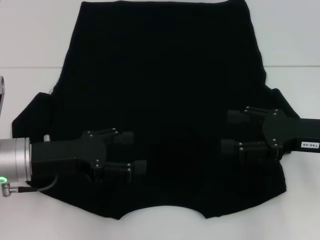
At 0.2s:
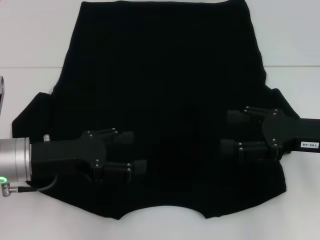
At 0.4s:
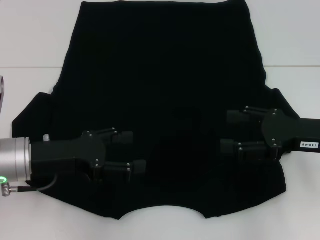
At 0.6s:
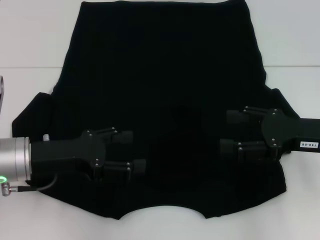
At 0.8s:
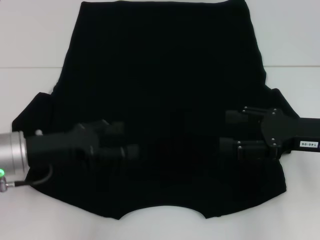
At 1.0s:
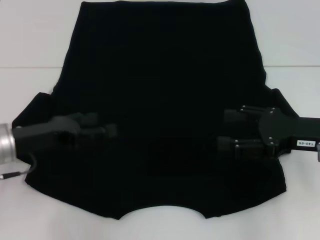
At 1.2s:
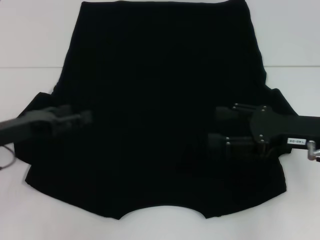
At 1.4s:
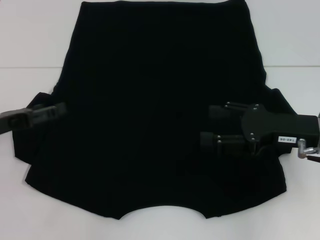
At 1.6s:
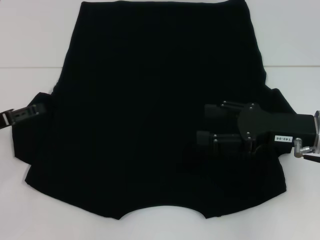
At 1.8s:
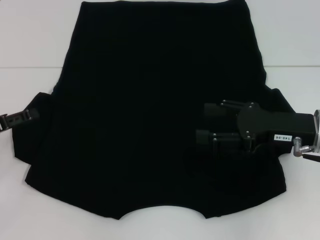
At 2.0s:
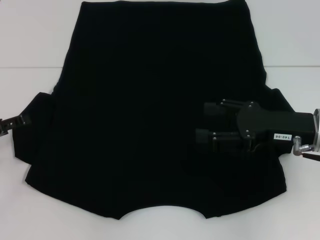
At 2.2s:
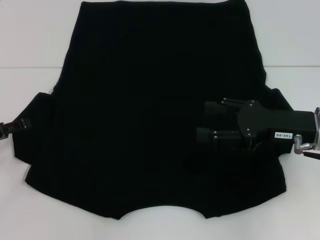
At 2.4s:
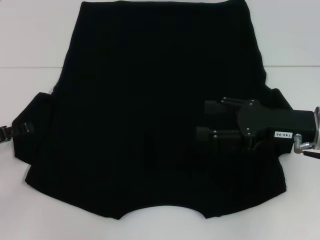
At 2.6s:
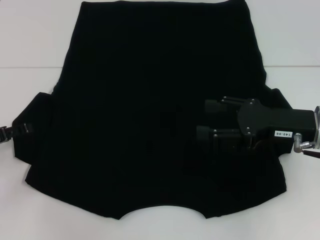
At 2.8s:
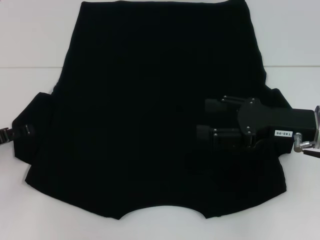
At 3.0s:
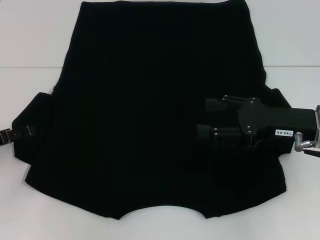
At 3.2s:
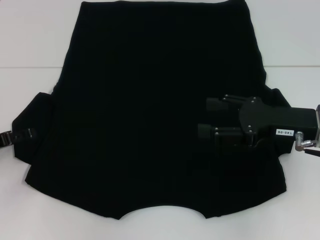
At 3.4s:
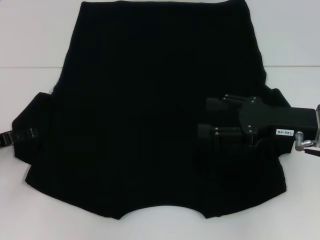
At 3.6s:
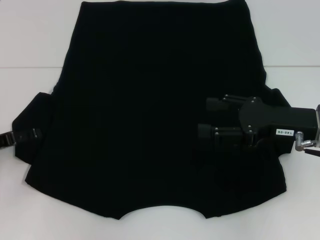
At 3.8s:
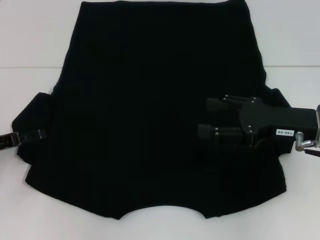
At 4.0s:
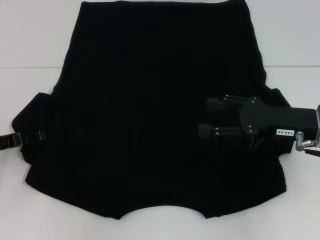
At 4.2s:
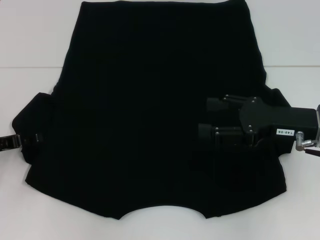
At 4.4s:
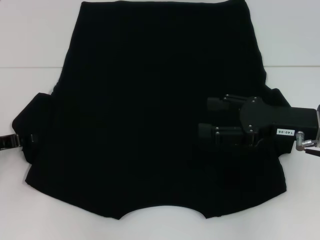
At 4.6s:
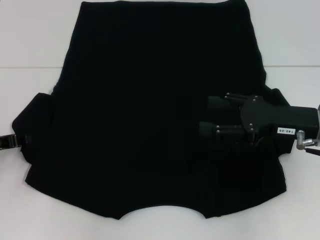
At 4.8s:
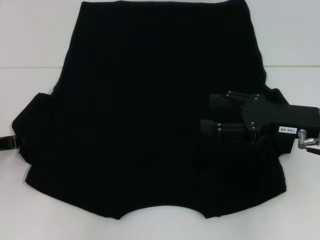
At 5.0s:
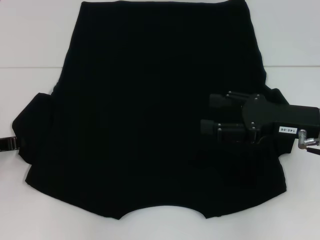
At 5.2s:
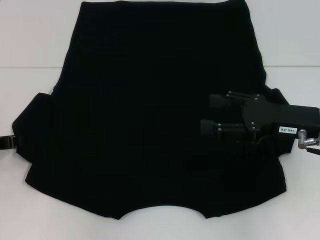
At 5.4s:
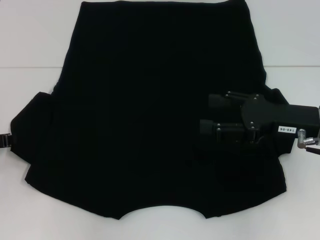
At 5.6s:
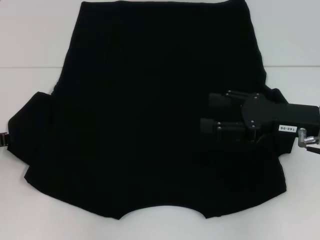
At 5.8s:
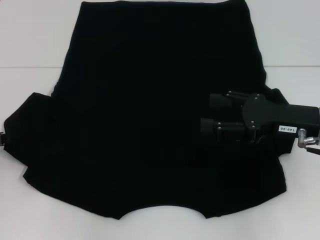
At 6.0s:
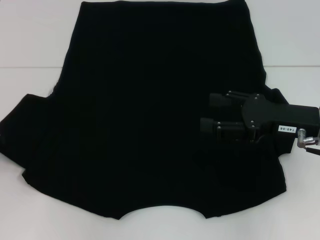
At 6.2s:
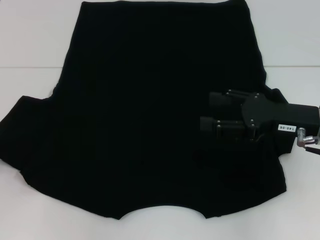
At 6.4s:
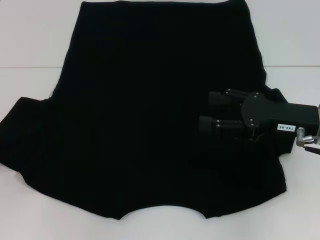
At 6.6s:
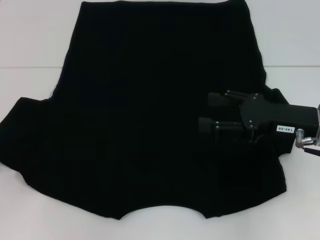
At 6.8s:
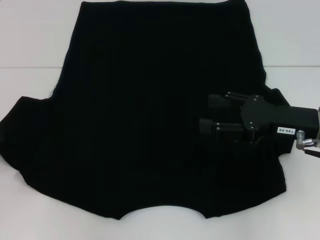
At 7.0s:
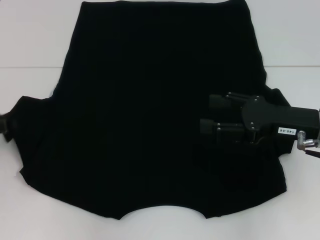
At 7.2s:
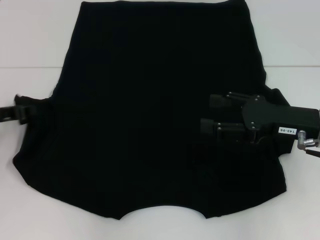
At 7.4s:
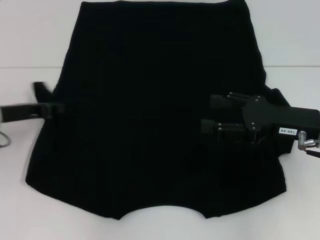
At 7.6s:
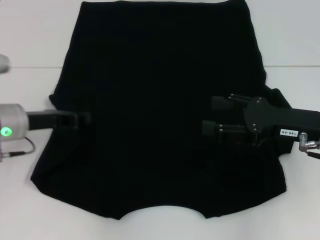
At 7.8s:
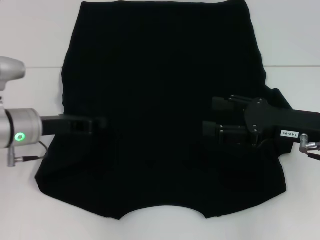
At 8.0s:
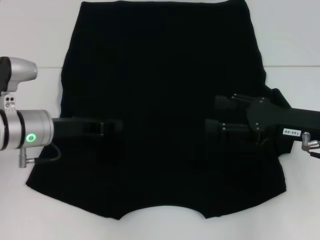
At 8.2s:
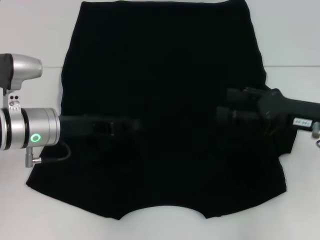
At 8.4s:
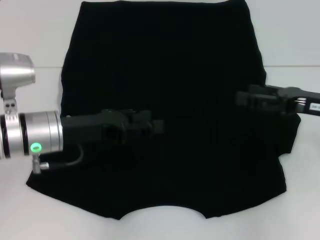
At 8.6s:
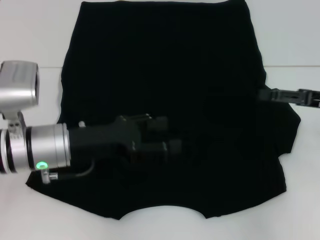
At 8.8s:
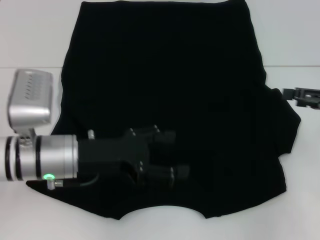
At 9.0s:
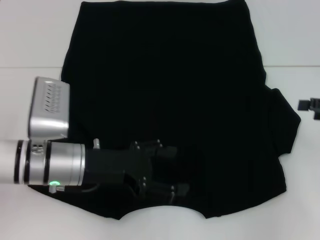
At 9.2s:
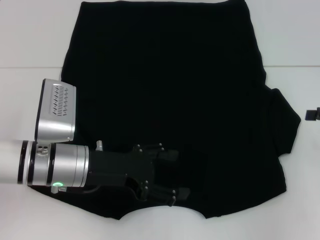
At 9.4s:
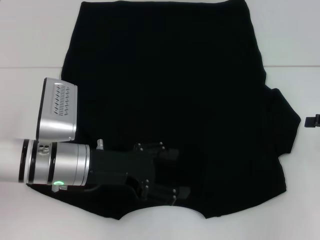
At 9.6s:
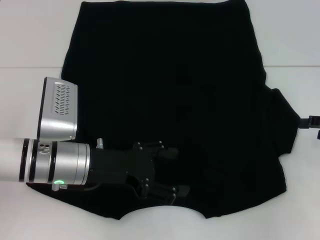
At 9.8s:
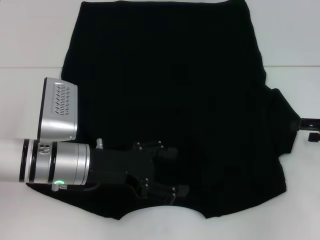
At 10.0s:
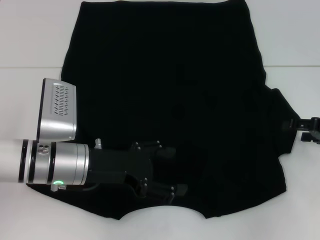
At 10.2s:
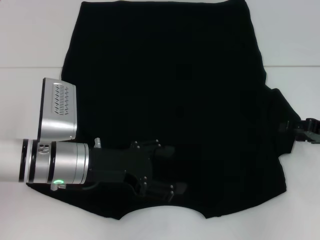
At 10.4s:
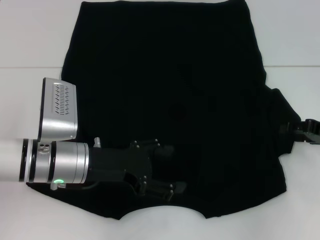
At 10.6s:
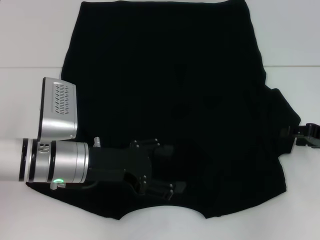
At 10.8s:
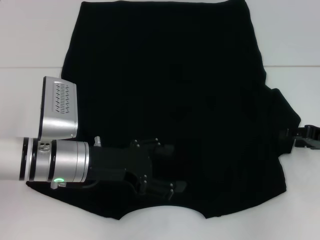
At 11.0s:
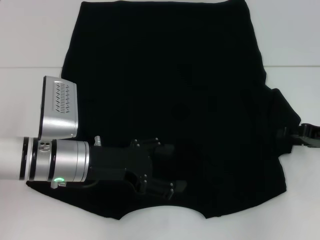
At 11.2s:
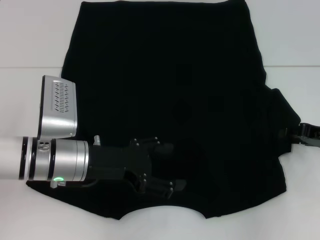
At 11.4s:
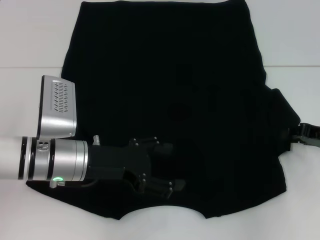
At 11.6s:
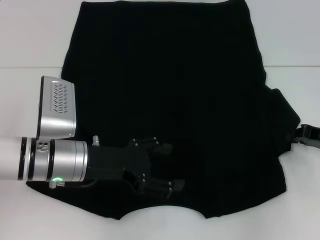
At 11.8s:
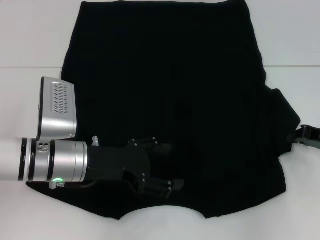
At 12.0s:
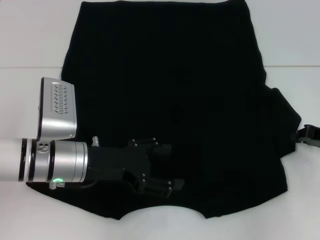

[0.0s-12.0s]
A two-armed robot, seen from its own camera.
Step, 0.0s to 9.0s: Fold the bottom left sleeve with your left hand.
0.0s to 1.6s: The left gripper heads to the left, covering about 10 cm.
1.6s to 3.0s: There are only small adjustments of the grippers.
3.0s to 4.4s: The left gripper closes.
4.4s to 6.0s: The left gripper closes up.
6.0s to 7.6s: The left gripper travels to the right by some 10 cm.
7.6s to 9.0s: The right gripper heads to the right, covering about 15 cm. Meanwhile the left gripper shifts some 10 cm to the right and backward, and opens up.
9.0s to 10.4s: The right gripper moves downward, roughly 5 cm.
10.4s to 12.0s: The right gripper closes.

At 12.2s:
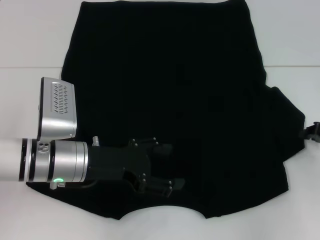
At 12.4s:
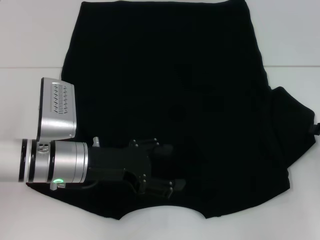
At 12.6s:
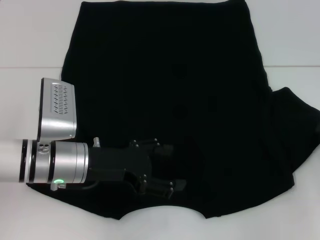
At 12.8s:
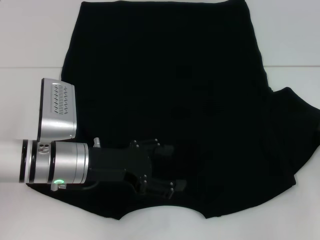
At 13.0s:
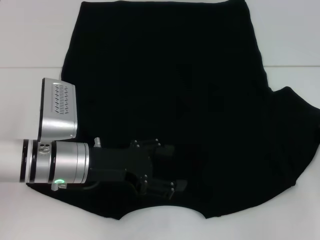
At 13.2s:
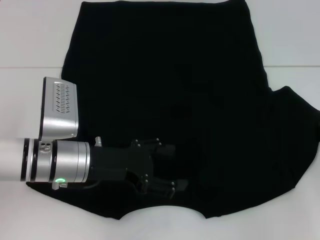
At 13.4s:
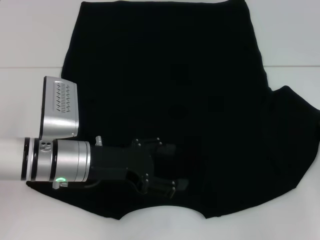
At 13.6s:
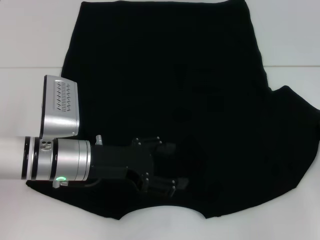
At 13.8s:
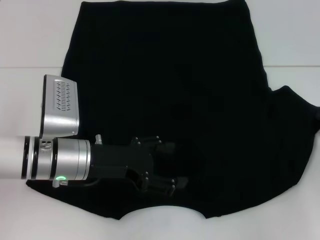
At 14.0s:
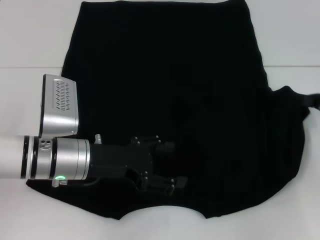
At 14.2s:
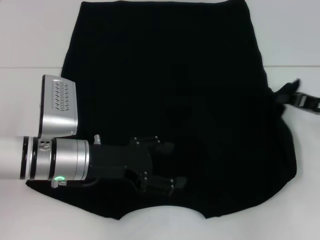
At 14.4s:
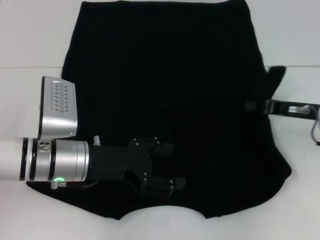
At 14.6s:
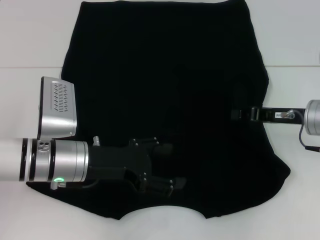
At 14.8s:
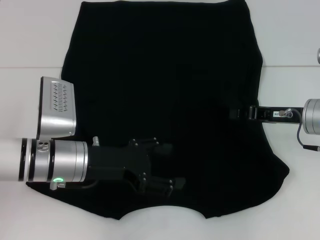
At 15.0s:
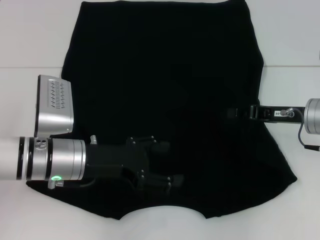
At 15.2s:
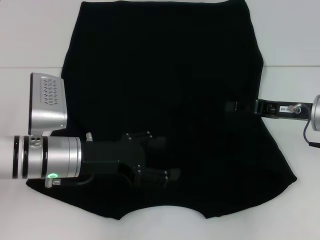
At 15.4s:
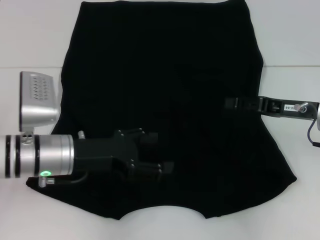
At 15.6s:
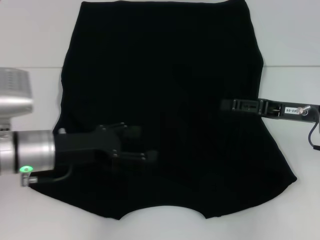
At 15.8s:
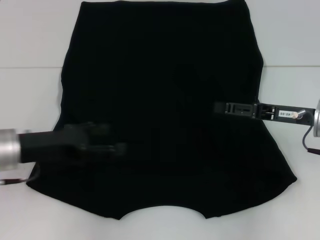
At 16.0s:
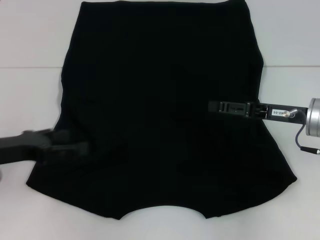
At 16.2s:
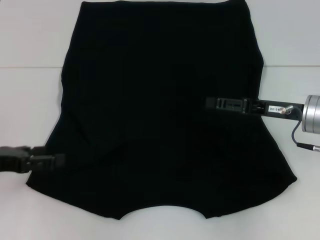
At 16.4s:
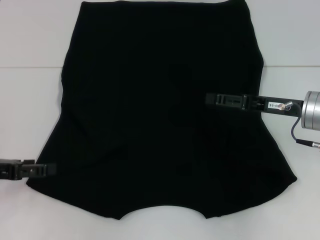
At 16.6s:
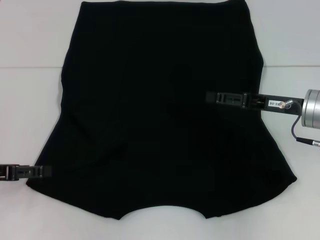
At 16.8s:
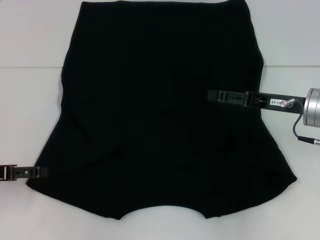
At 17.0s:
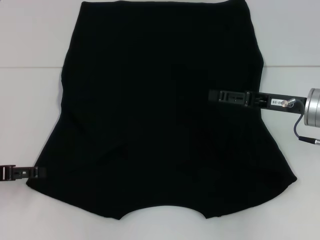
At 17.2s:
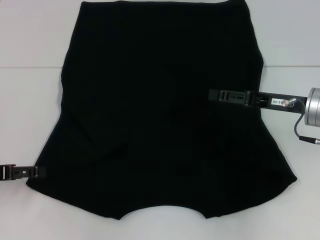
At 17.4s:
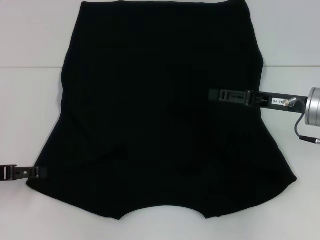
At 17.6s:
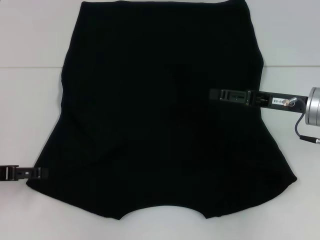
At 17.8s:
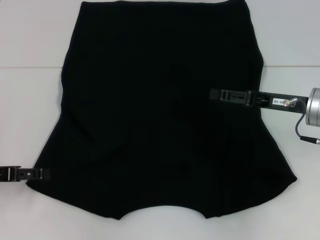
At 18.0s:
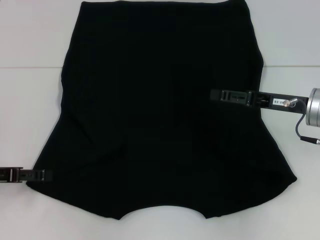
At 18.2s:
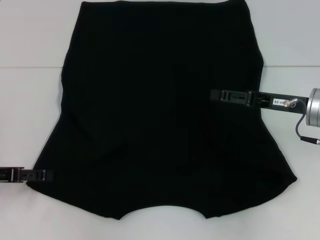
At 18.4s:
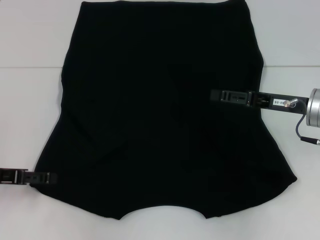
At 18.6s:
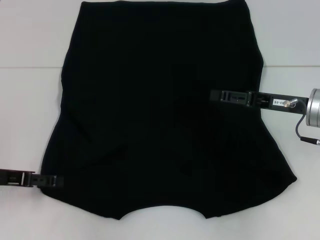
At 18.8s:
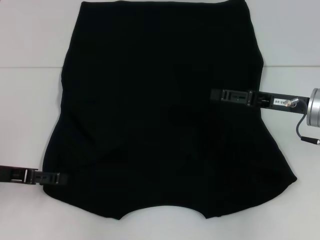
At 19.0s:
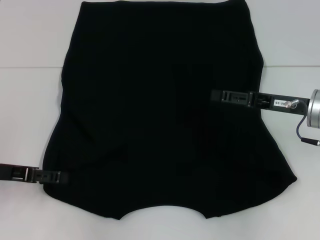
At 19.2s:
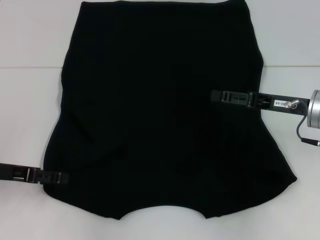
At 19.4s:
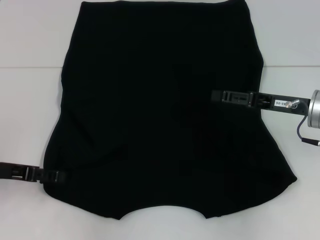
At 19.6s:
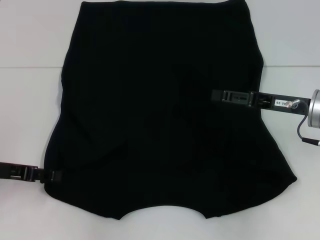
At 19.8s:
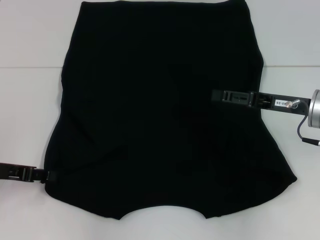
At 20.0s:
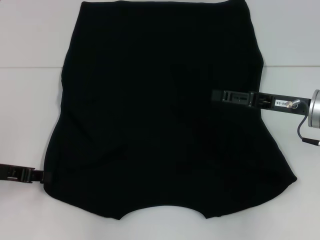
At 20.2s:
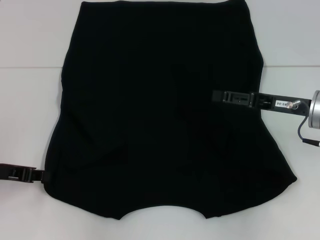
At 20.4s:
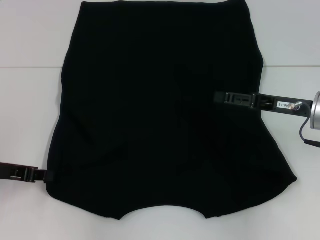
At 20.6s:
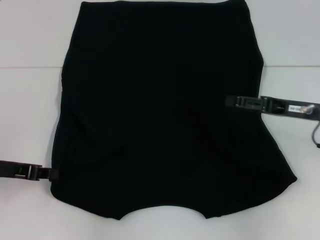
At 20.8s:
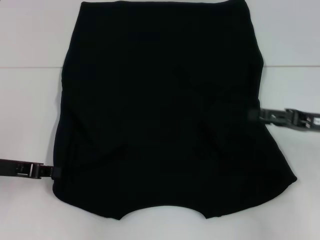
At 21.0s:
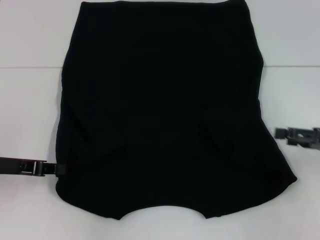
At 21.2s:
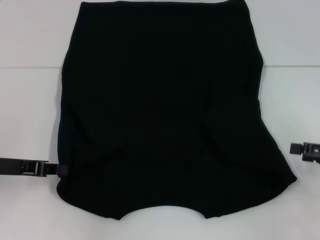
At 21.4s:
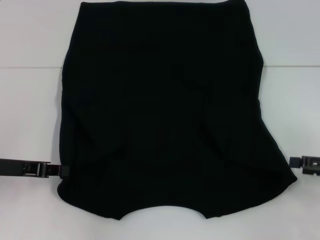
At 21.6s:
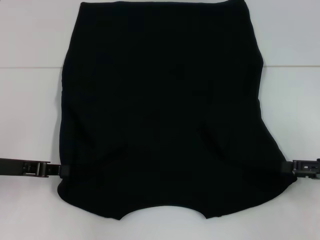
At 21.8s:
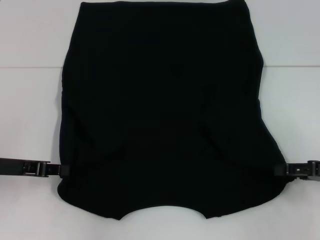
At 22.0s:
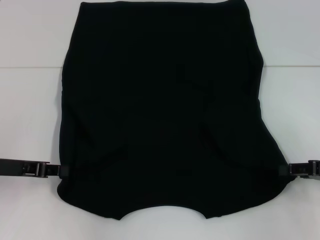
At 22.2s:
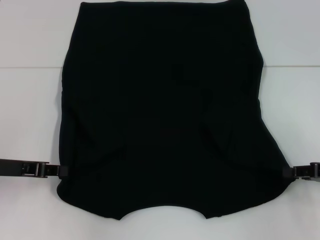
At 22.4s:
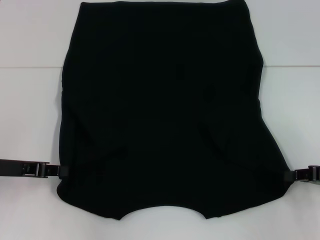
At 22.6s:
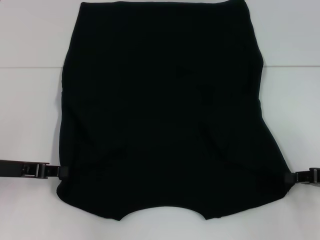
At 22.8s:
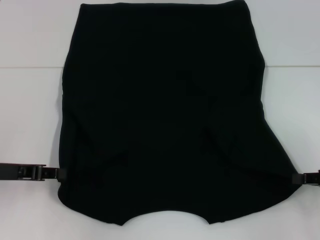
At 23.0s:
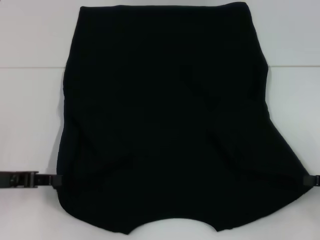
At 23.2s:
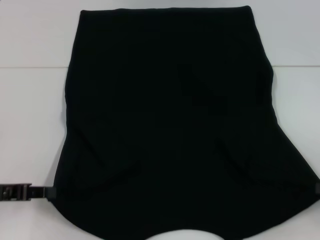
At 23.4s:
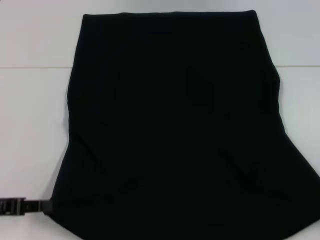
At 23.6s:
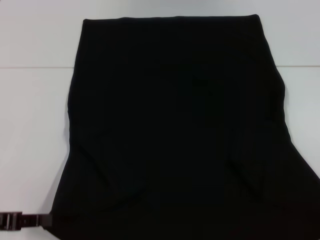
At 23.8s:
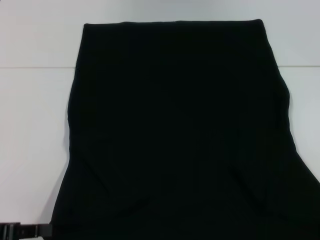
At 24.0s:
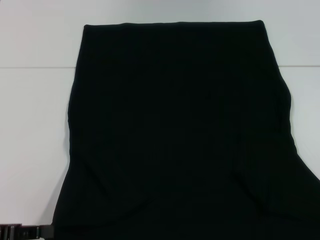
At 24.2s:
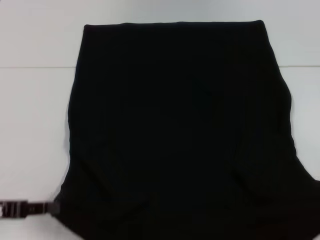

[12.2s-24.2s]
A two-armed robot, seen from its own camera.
Step, 12.2s to 16.4s: Fold the bottom right sleeve with your right hand.
Step, 16.6s to 23.4s: Grab the bottom left corner with your left hand.
Step, 16.6s to 23.4s: Grab the bottom right corner with your right hand.
12.2s to 13.8s: There are only small adjustments of the grippers.
13.8s to 15.2s: The right gripper shifts roughly 10 cm to the left.
15.2s to 16.6s: The right gripper opens its fingers; the left gripper shifts some 15 cm to the left.
16.6s to 18.2s: The grippers stay close to where they were, moving slightly.
18.2s to 19.8s: The left gripper closes its fingers.
19.8s to 21.2s: The right gripper is displaced to the right and backward by roughly 15 cm. Meanwhile the left gripper closes its fingers.
21.2s to 22.6s: The right gripper closes up.
22.6s to 24.2s: The right gripper travels backward and to the right by roughly 10 cm. The left gripper travels backward by some 10 cm.
